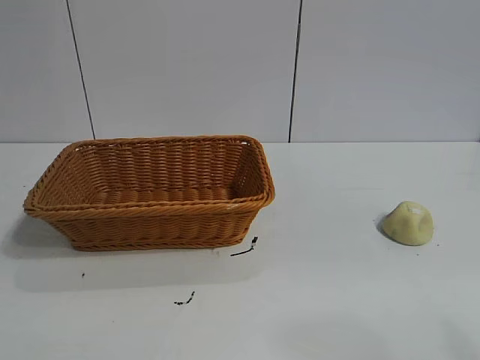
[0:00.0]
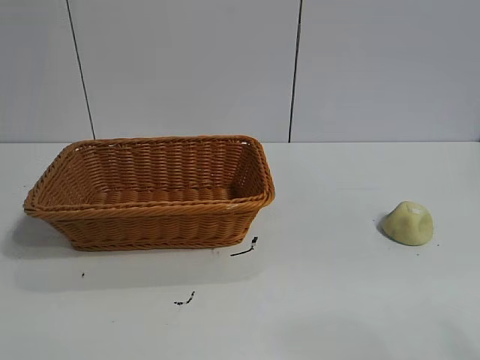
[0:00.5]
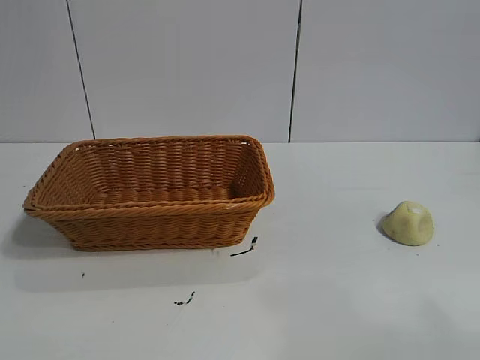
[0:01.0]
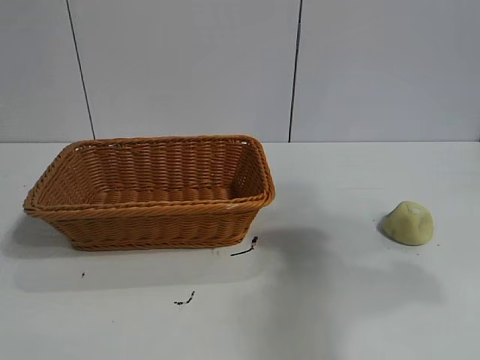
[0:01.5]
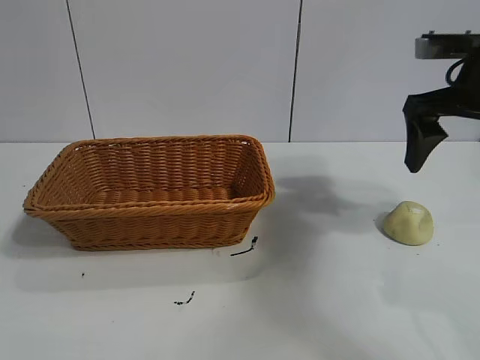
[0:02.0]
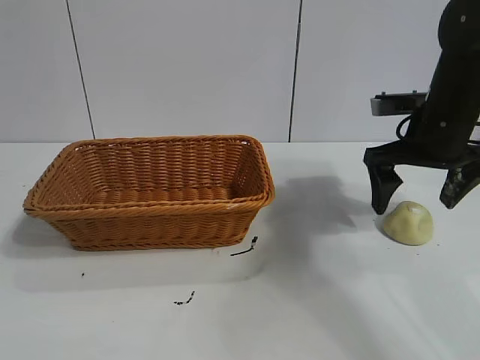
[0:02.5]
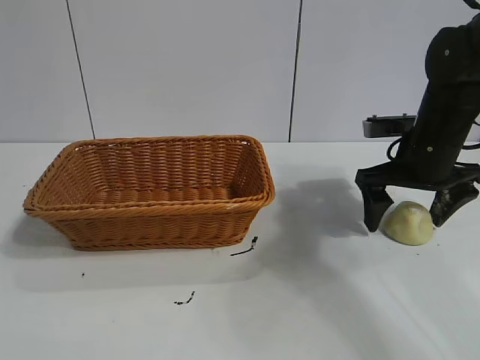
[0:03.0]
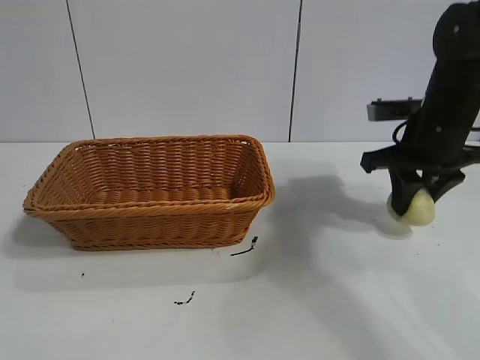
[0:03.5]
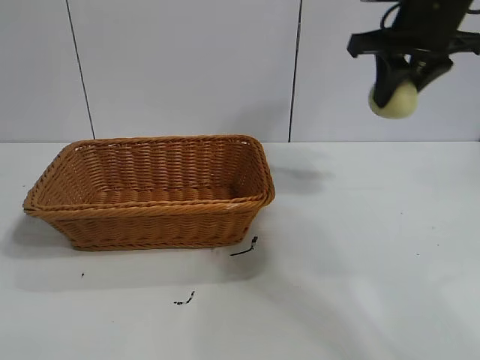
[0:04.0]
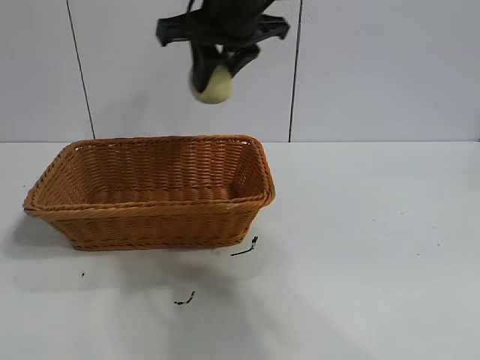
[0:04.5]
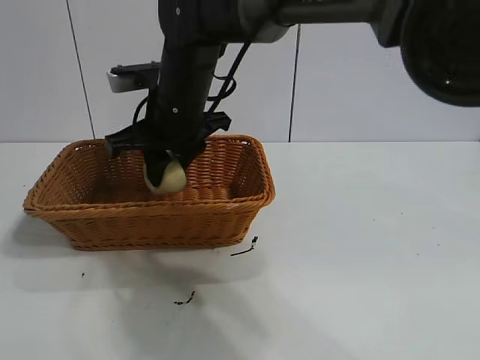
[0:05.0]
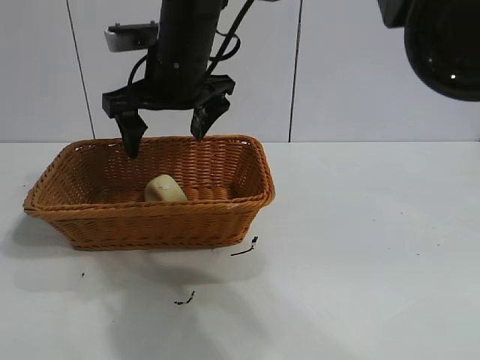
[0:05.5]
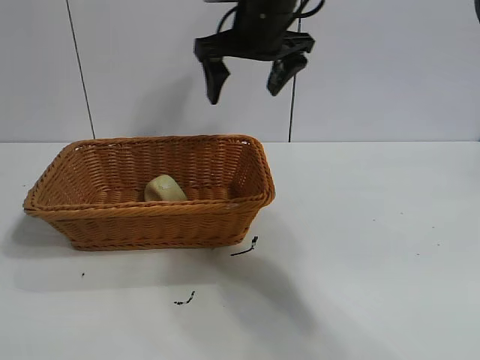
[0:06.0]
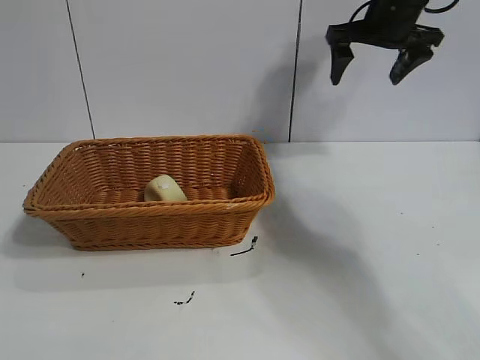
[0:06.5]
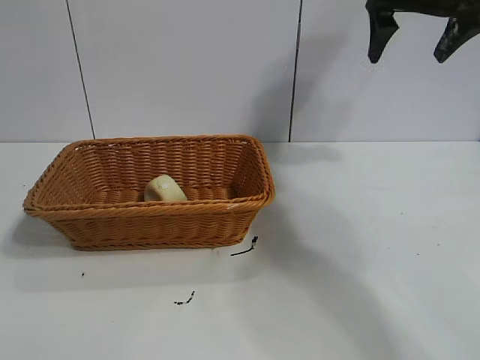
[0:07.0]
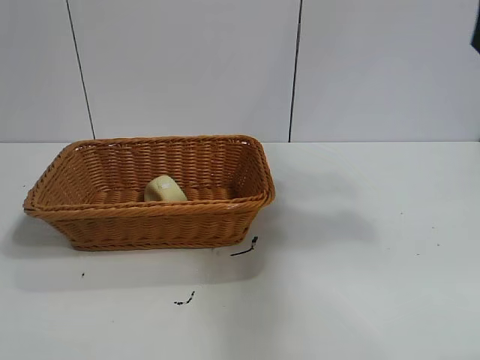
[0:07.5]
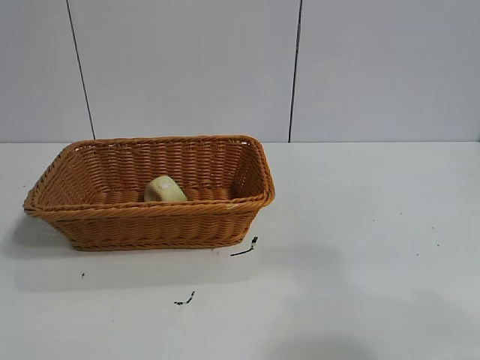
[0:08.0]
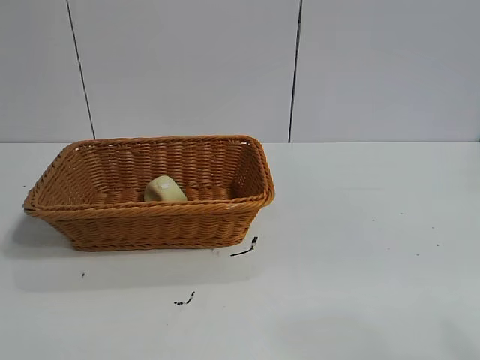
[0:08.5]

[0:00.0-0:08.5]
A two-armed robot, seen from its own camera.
Task of the whole recording: pick up the egg yolk pastry and put it into the basket.
Step, 0:01.0 to 0:03.0: Grasp egg yolk pastry with right gripper.
Step, 0:03.5 to 0:05.0: Place the egg yolk pastry in the basket with right gripper.
